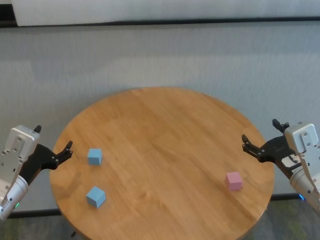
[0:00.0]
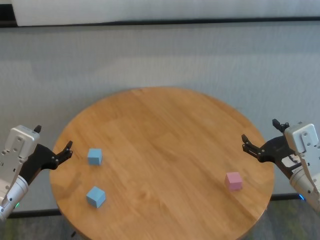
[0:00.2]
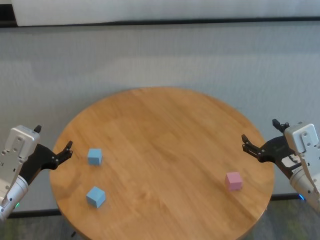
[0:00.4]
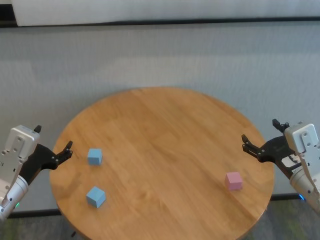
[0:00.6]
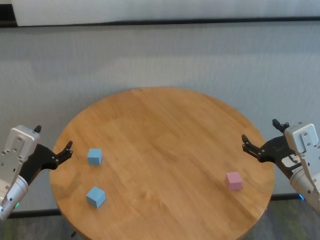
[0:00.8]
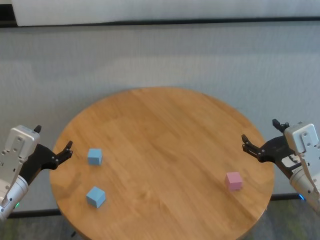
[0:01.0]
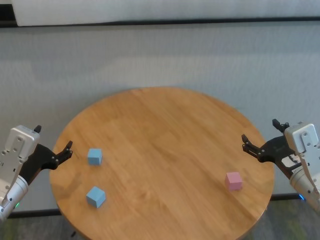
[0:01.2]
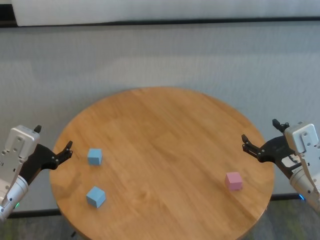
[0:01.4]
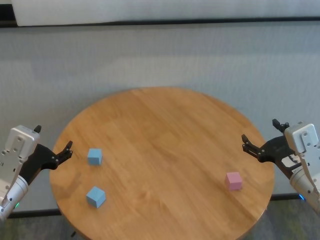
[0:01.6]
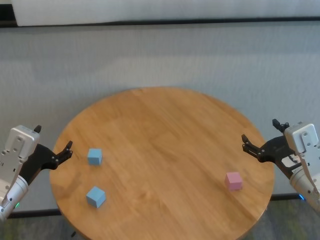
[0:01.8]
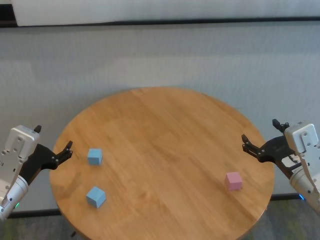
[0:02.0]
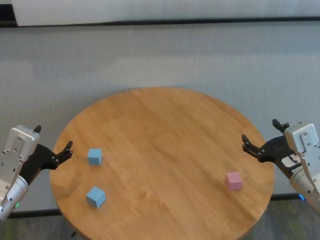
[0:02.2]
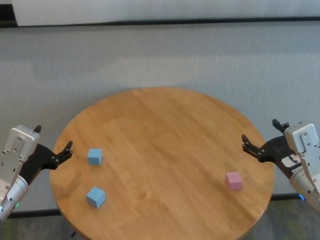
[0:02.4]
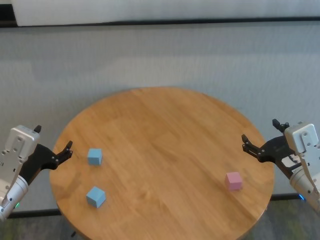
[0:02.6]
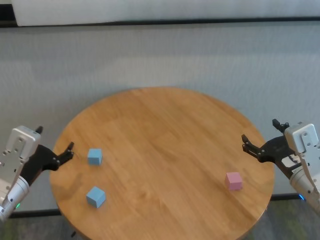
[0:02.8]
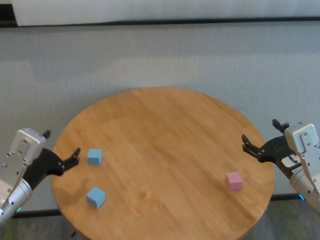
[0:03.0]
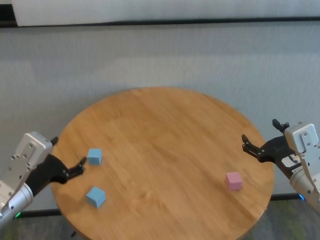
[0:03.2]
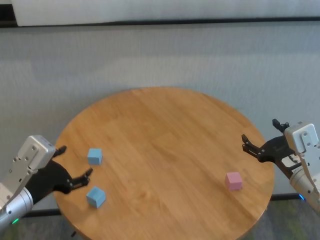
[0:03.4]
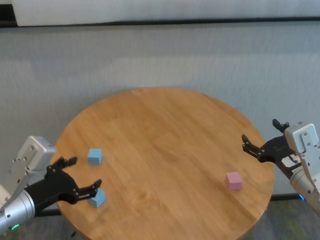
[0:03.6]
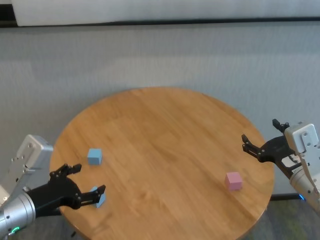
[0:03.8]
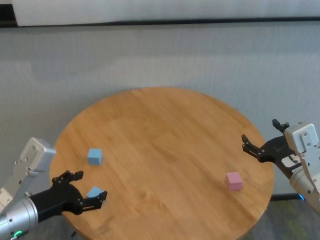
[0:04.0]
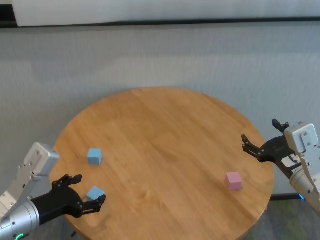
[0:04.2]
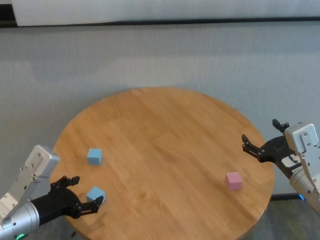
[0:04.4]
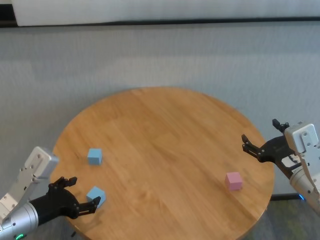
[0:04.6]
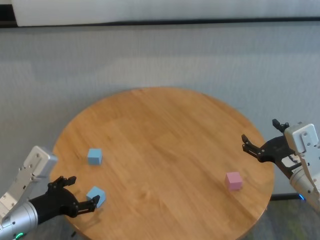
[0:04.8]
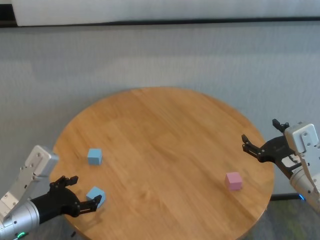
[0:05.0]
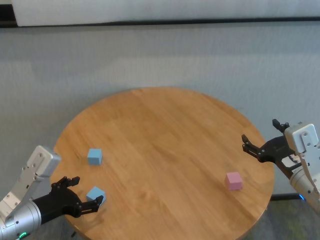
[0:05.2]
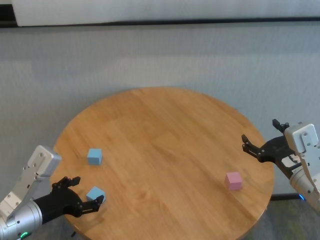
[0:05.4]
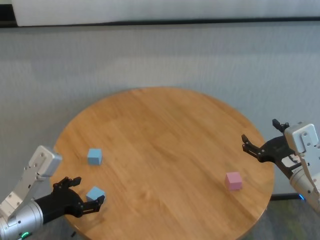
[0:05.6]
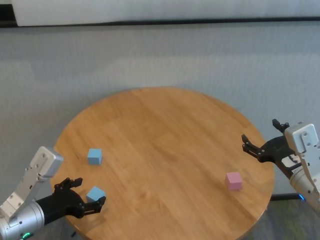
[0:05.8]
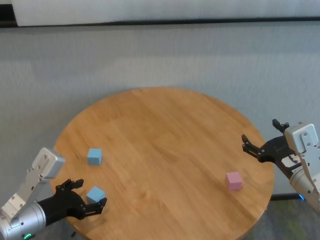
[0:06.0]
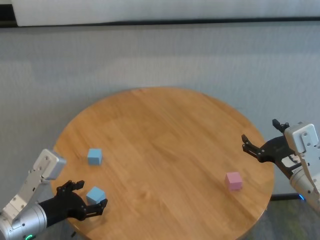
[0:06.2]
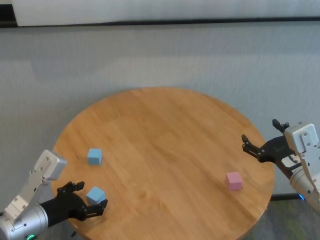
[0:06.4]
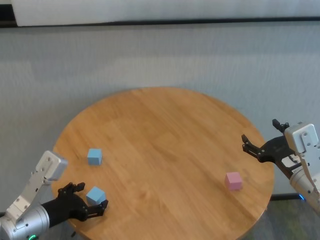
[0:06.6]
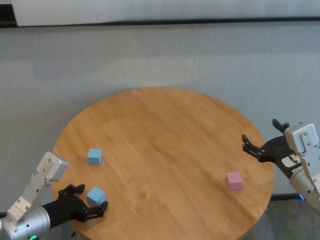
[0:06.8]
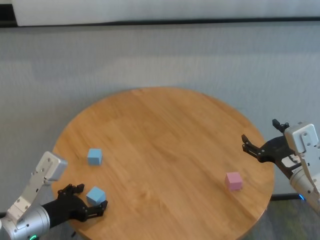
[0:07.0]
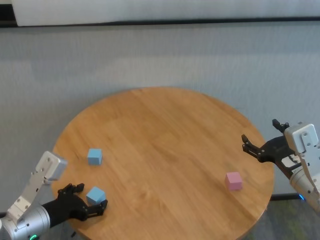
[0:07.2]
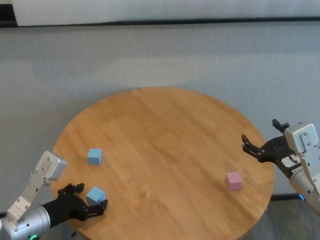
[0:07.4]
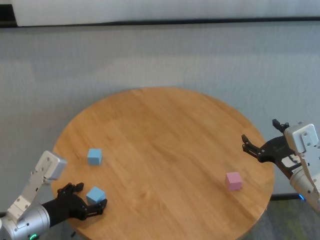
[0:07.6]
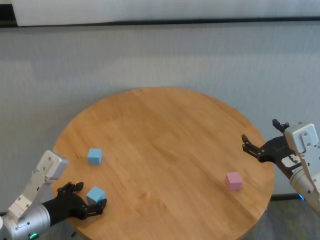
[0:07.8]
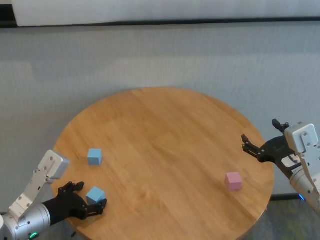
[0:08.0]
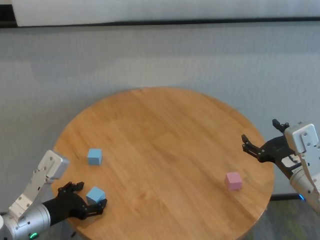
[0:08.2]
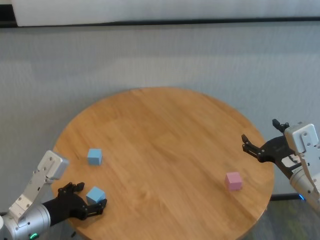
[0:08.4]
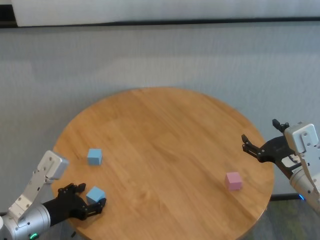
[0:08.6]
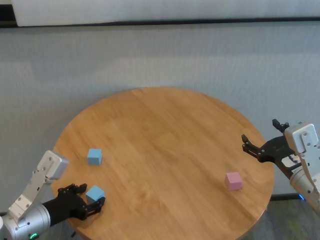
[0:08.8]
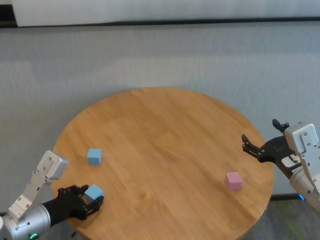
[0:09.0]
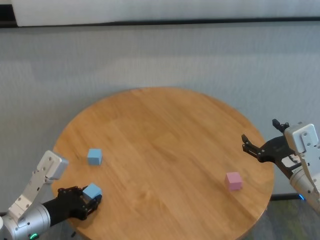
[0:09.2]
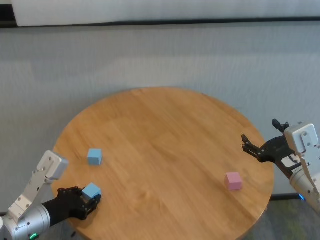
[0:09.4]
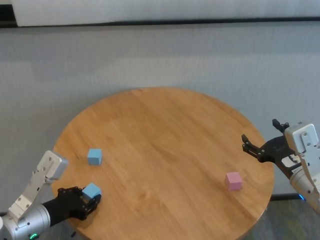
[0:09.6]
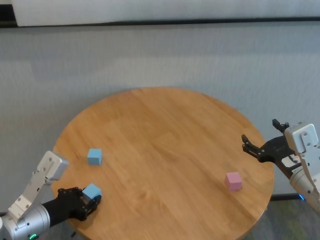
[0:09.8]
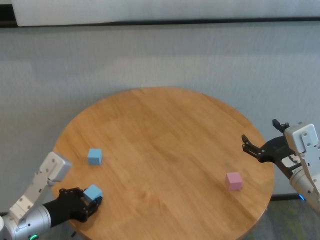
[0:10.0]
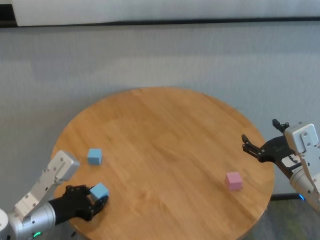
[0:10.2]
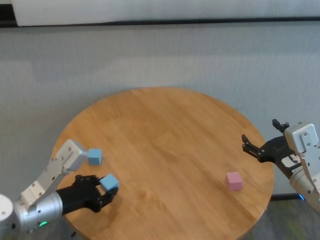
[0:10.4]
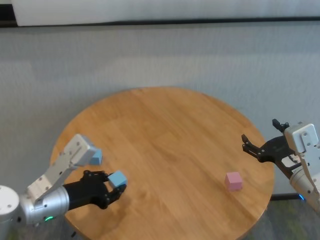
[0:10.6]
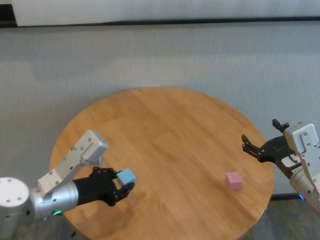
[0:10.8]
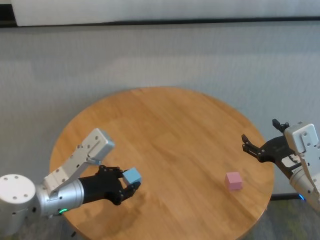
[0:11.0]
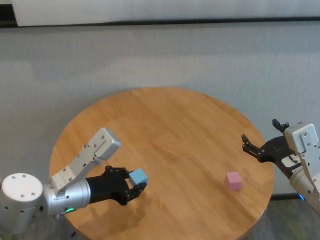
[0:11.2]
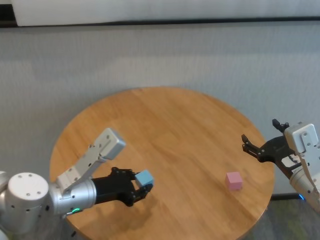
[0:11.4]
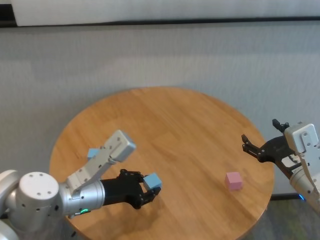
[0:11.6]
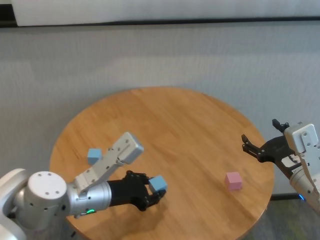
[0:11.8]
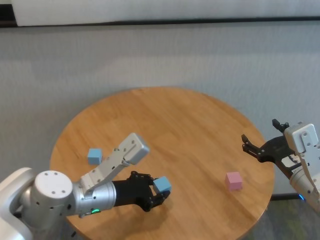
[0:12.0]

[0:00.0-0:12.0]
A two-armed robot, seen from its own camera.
Task of the whole recording: stack building blocks on the table.
Step, 0:00.0 to 0:09.2: Grasp the blue building block with left gripper.

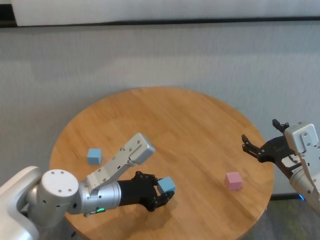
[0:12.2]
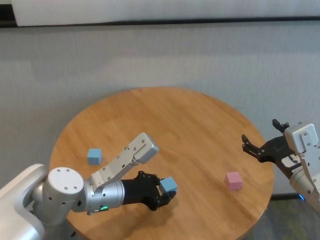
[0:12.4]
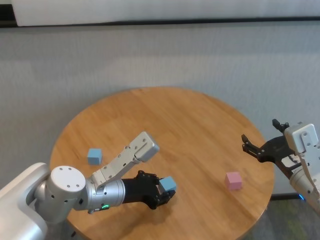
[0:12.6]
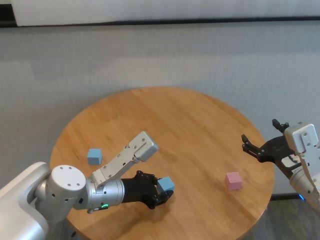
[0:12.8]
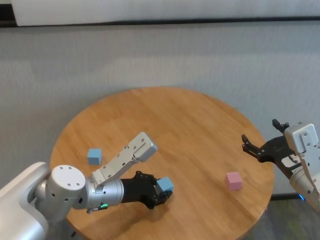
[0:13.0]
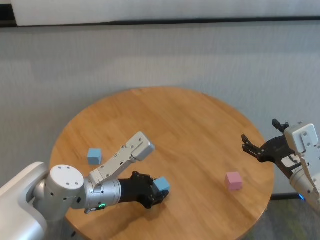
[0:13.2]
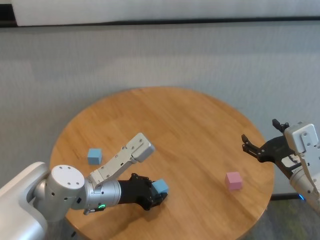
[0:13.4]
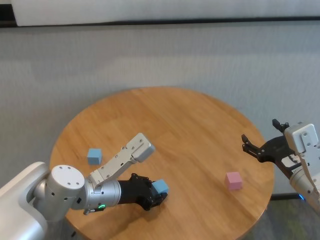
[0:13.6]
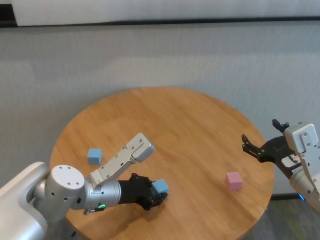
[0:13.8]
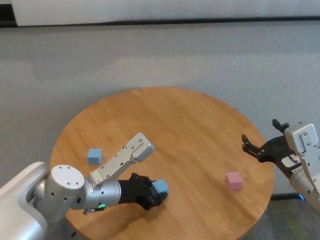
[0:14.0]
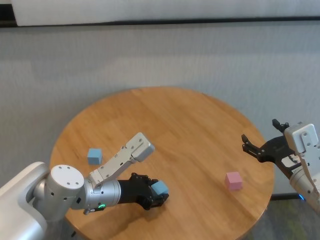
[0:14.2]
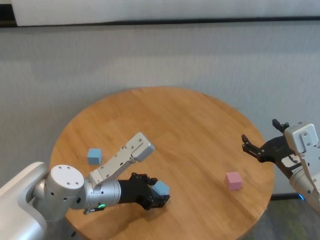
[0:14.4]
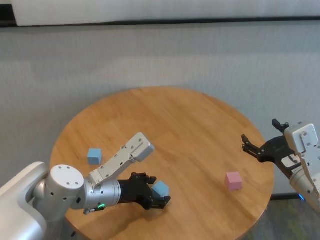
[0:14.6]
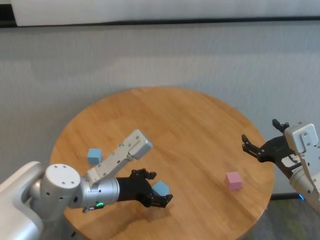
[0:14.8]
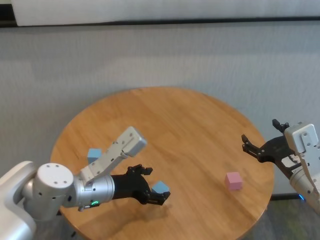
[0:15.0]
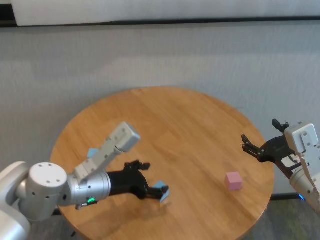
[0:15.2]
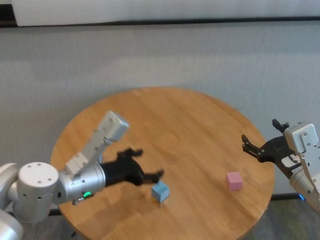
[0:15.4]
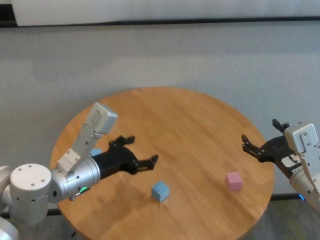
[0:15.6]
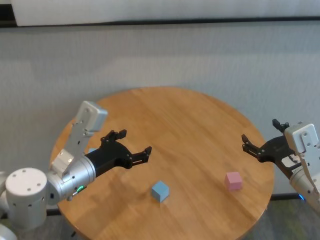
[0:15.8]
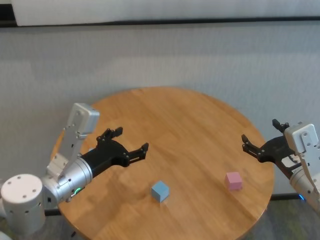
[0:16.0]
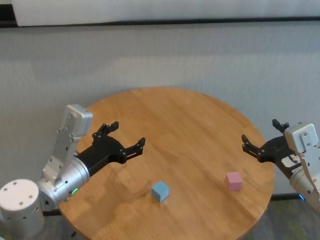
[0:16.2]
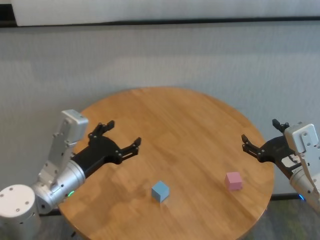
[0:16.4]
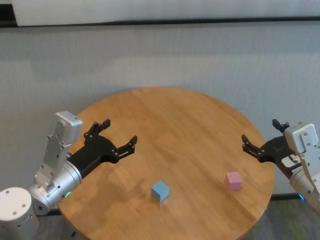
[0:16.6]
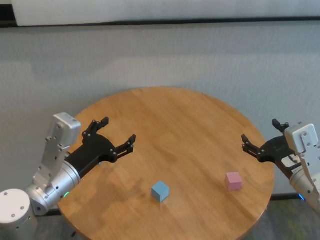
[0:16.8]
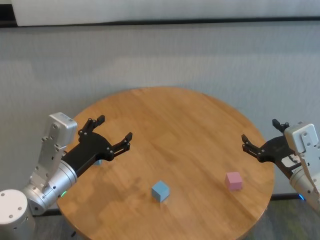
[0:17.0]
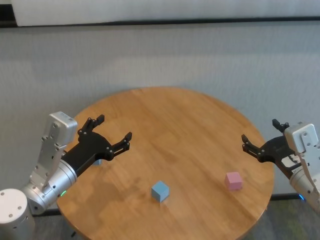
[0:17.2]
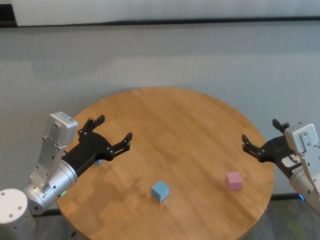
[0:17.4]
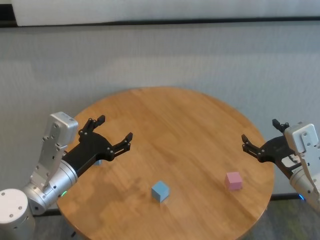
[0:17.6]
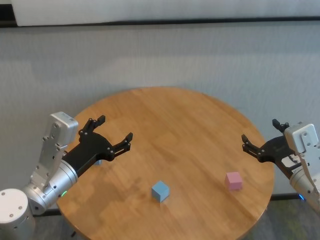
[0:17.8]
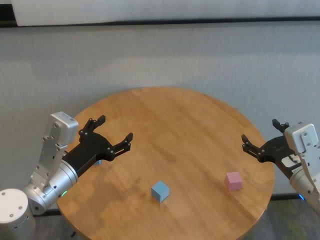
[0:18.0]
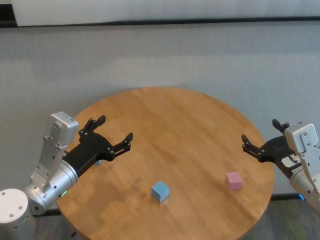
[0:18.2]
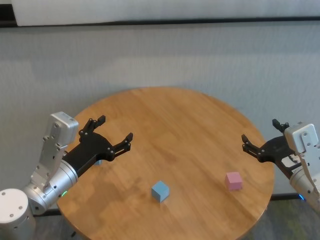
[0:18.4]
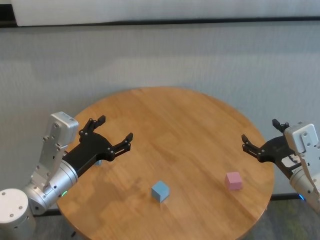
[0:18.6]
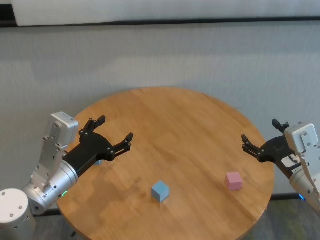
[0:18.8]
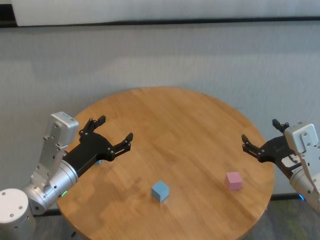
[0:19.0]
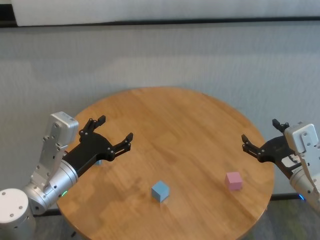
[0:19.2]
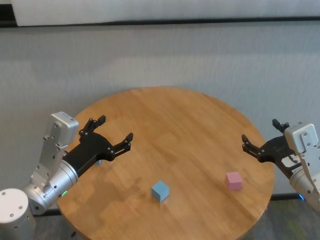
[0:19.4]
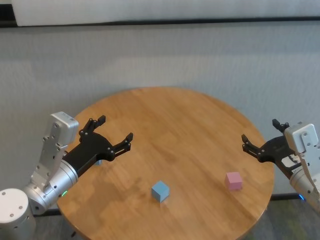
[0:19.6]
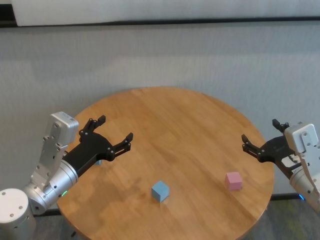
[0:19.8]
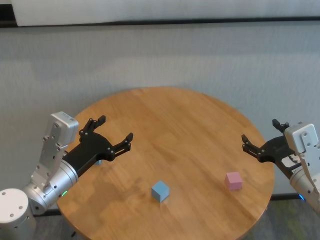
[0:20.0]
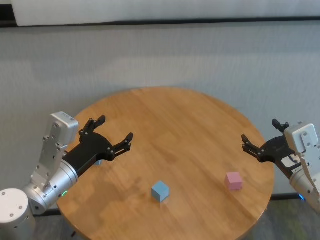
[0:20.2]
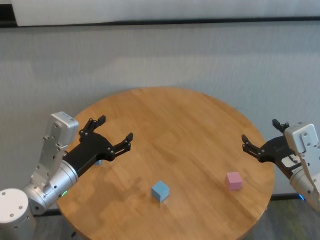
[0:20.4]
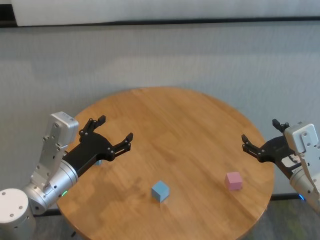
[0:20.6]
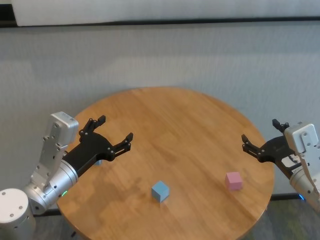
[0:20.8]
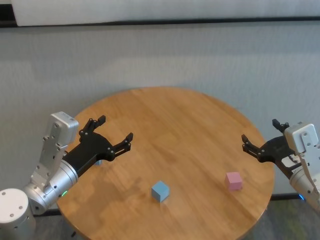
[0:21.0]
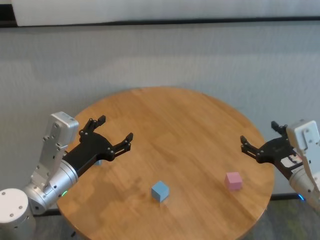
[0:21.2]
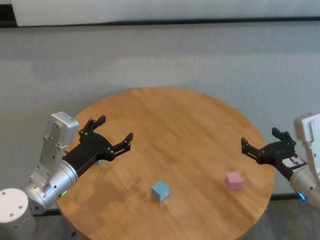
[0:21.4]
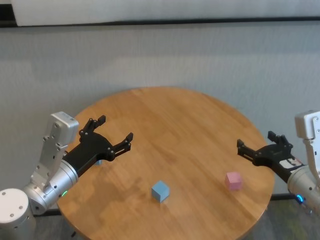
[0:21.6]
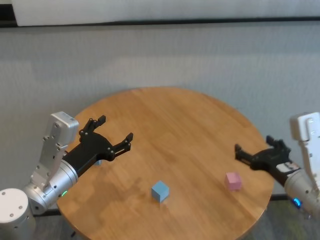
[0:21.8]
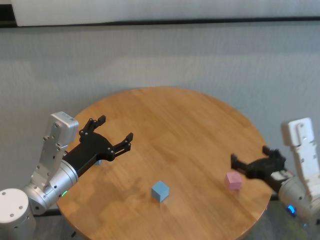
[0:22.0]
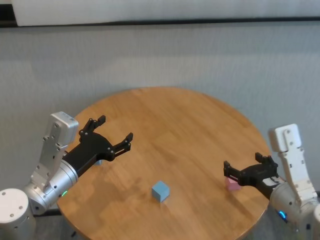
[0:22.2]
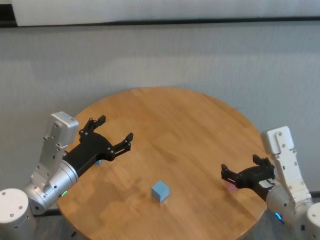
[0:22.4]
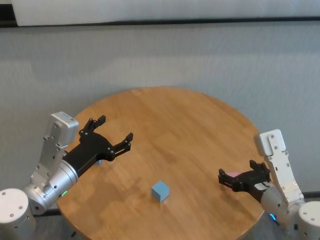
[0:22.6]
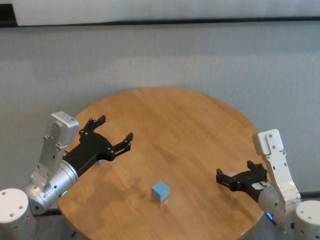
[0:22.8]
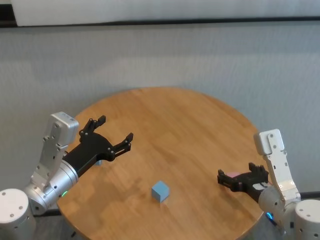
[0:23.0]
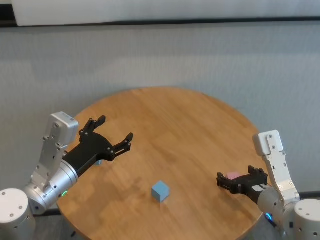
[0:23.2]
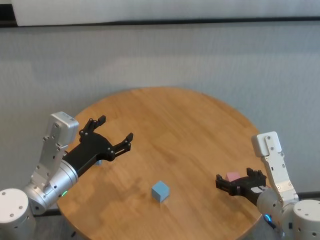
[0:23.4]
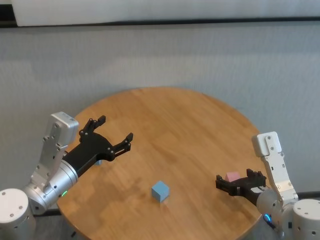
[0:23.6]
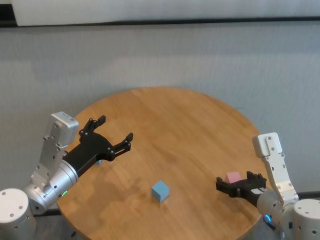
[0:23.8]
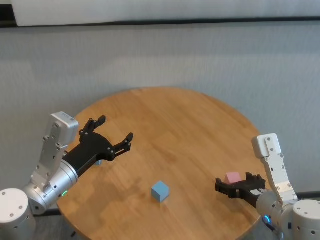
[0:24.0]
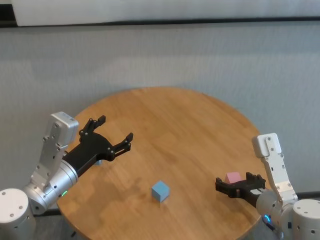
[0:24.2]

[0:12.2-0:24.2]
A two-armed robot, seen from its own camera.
Task of the whole recording: stack building blocks on the table.
Step, 0:12.2 to 0:14.4: Place the blue building block in the center of table with left gripper.
